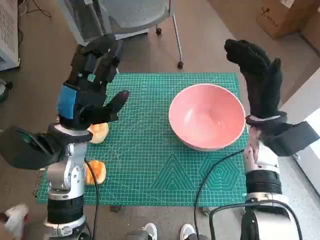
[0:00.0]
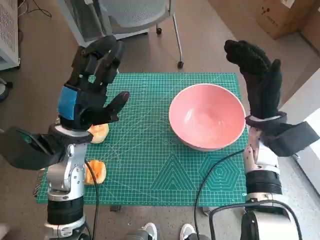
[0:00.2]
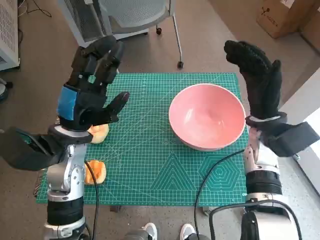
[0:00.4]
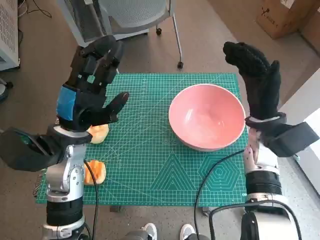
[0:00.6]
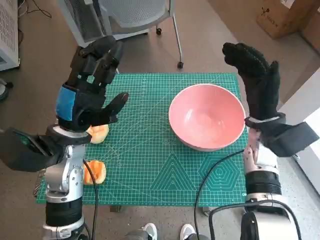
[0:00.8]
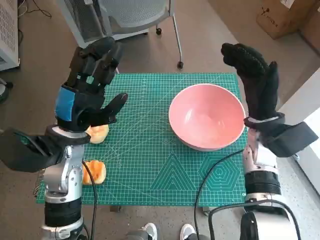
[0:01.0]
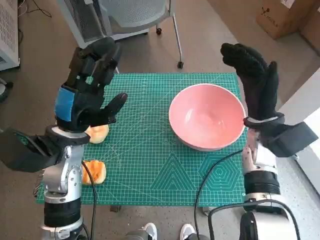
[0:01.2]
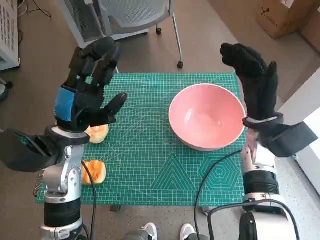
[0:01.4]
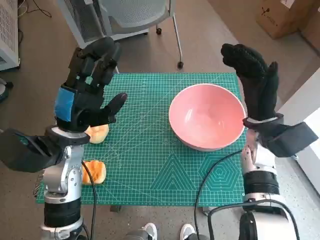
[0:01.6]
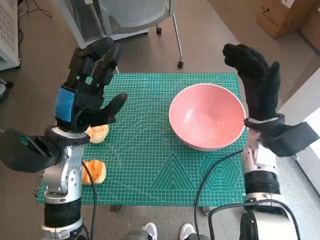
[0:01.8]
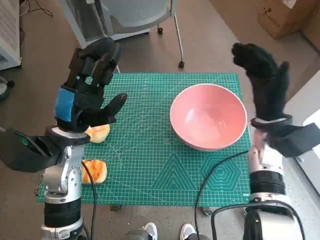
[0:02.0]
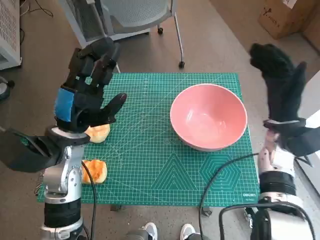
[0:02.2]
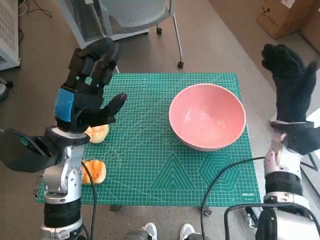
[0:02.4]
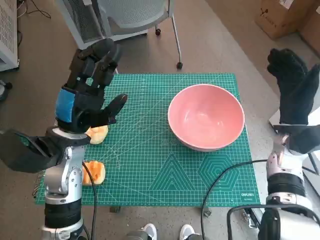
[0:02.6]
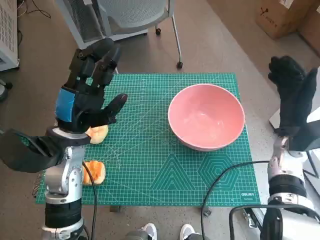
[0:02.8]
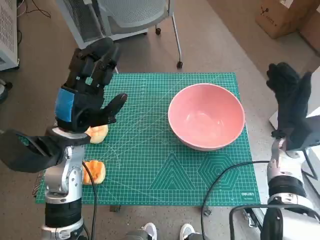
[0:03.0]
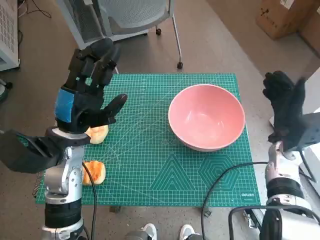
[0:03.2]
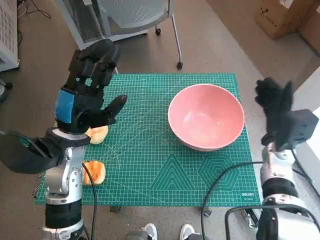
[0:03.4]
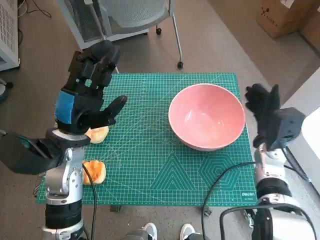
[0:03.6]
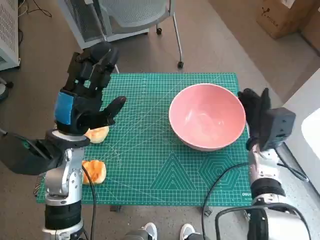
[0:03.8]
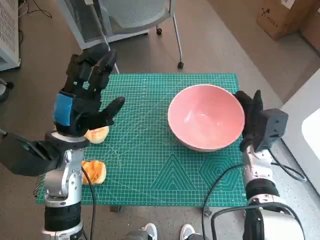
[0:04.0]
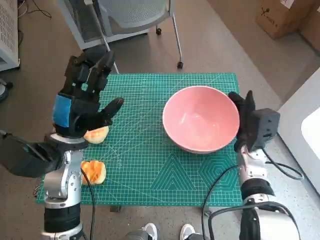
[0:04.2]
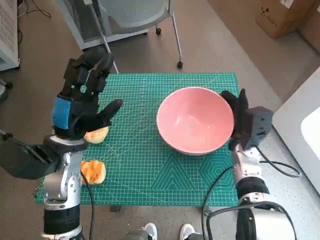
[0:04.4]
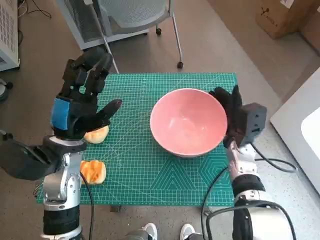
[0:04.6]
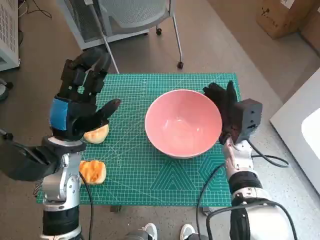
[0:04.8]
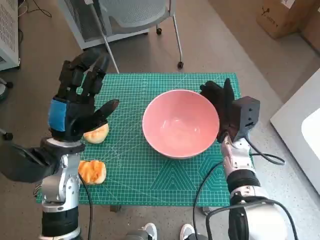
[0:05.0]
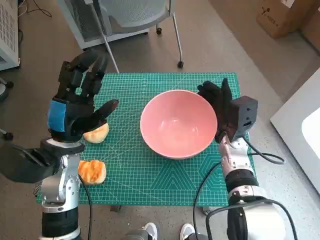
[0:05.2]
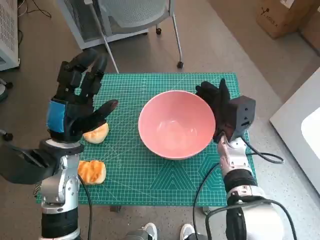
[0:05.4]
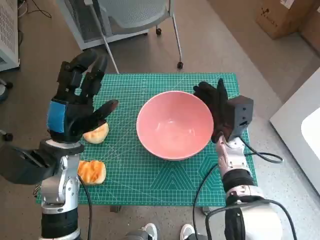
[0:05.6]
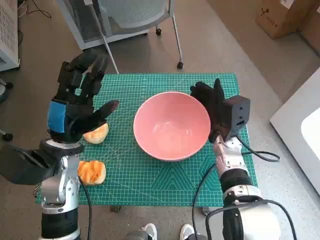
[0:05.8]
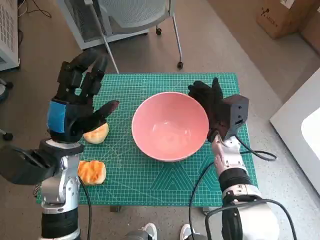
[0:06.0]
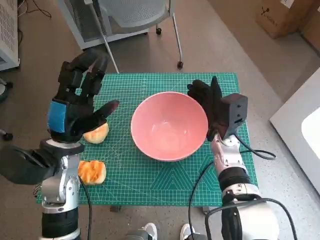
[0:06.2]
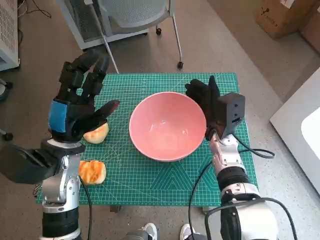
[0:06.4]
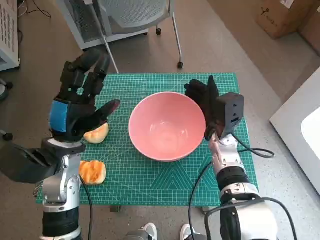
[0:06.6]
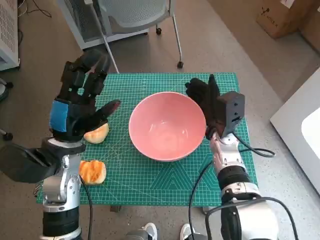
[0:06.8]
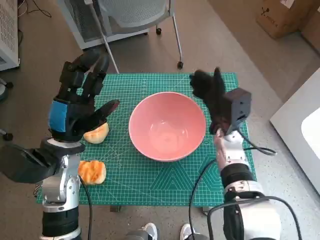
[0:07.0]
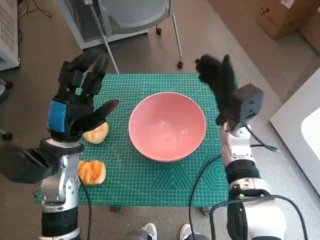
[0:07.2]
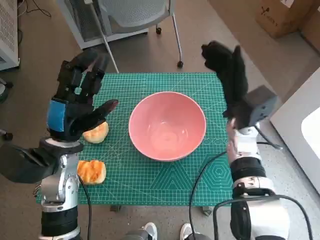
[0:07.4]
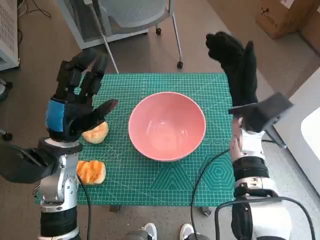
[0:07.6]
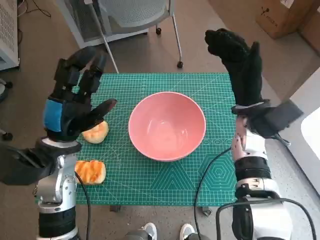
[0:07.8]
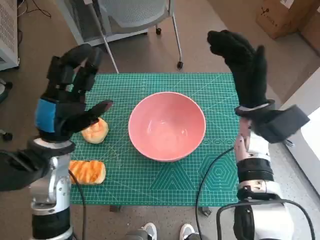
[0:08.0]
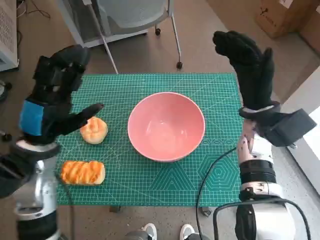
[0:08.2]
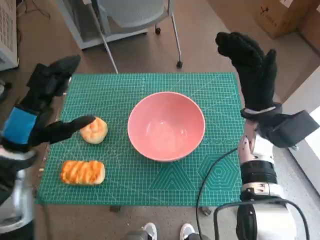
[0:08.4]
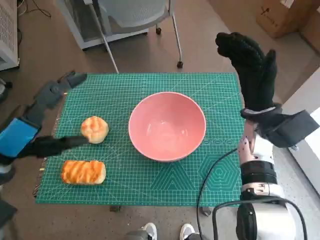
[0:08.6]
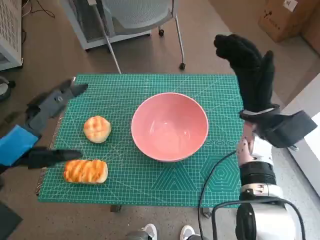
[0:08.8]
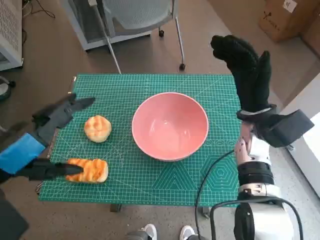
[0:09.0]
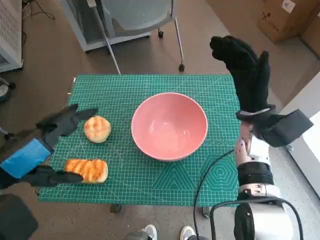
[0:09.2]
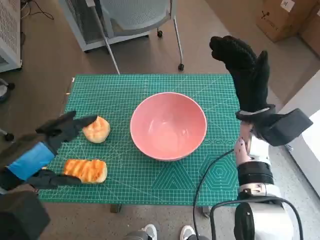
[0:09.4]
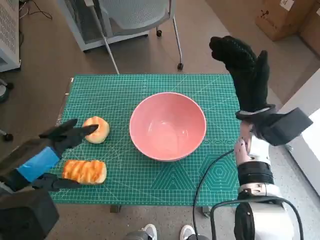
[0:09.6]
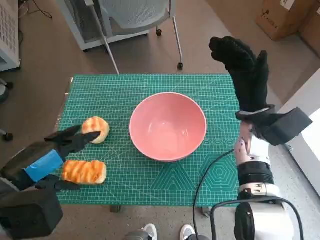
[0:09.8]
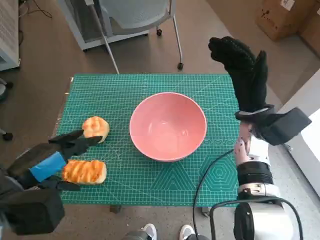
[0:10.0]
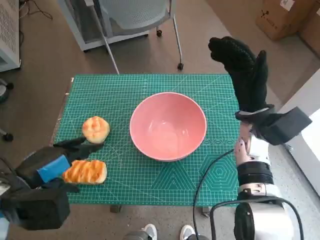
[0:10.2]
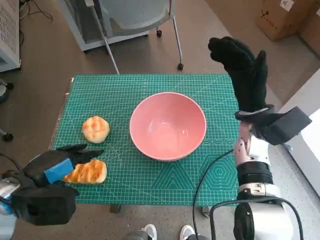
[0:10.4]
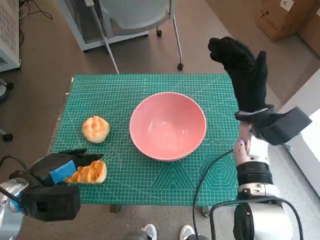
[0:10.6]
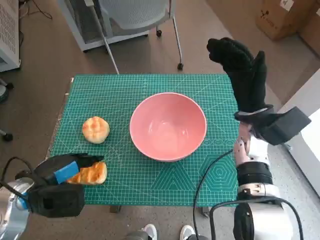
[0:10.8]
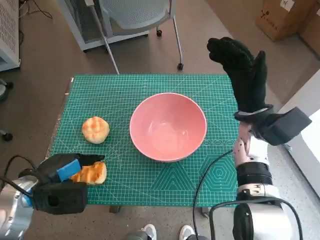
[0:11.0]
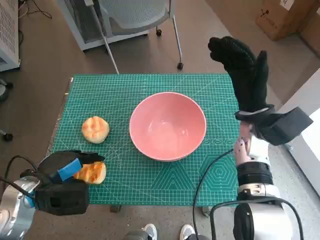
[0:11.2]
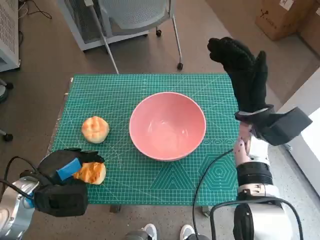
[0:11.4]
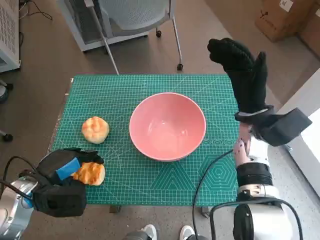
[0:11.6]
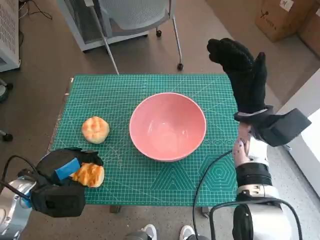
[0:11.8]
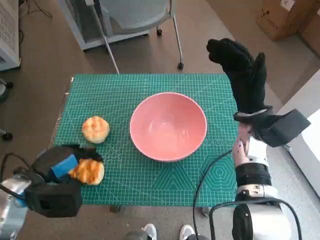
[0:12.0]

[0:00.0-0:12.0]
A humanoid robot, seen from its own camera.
Step, 0:00.0 to 0:07.0: Move the pink bowl to the center of table with right hand.
Step, 0:07.2 to 0:11.4: Grasp the long bread with left hand.
0:01.6 to 0:03.0: The right hand moves to the right, approximately 5 cm.
0:03.0 to 0:04.4: The right hand is displaced to the left and downward by about 10 cm.
0:04.4 to 0:06.0: The right hand goes approximately 5 cm to the left.
0:06.0 to 0:07.6: The right hand moves upward, approximately 5 cm.
0:07.6 to 0:09.0: The left hand is displaced backward and upward by about 15 cm.
0:09.0 to 0:10.4: The left hand shifts some 10 cm downward.
0:10.4 to 0:12.0: The left hand ends up roughly 5 cm from where it was.

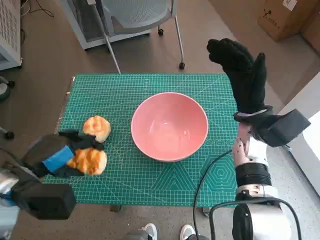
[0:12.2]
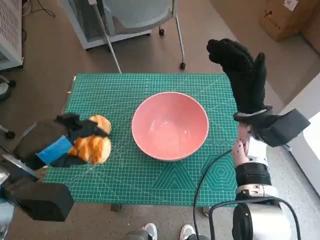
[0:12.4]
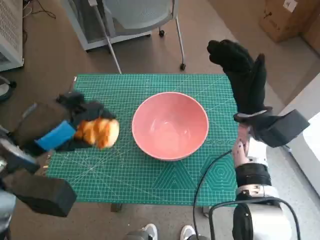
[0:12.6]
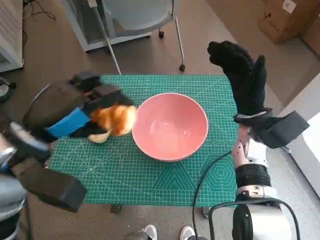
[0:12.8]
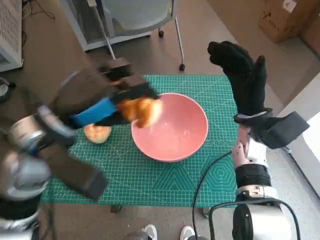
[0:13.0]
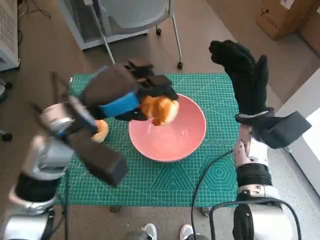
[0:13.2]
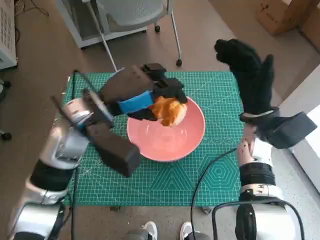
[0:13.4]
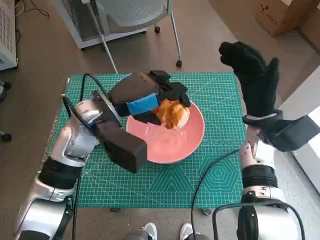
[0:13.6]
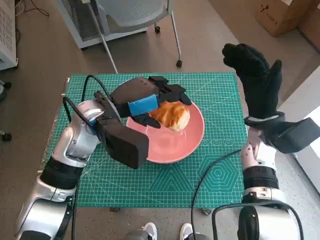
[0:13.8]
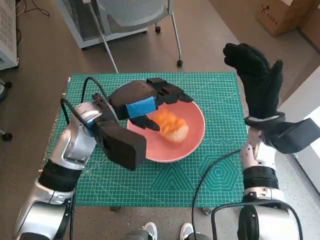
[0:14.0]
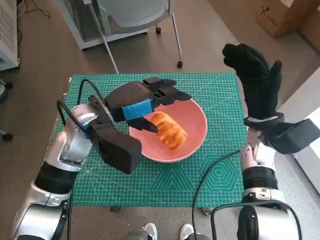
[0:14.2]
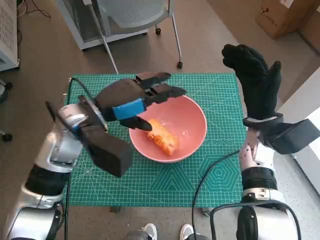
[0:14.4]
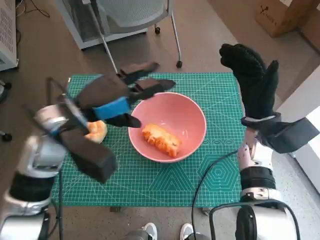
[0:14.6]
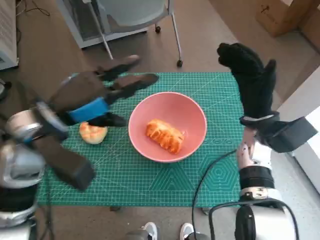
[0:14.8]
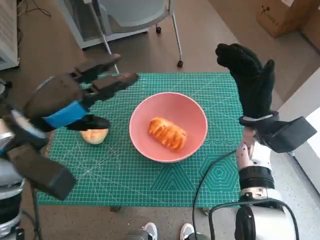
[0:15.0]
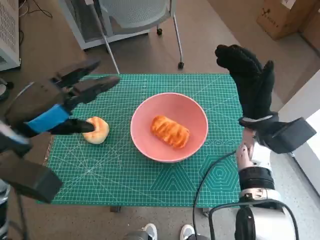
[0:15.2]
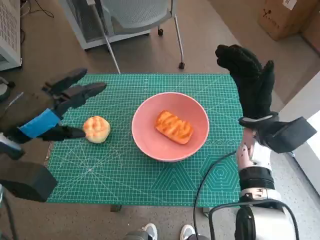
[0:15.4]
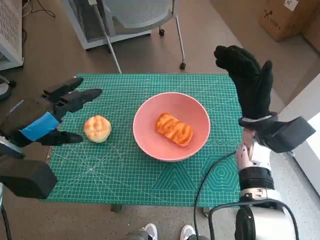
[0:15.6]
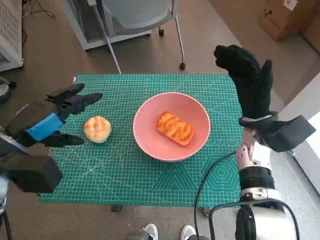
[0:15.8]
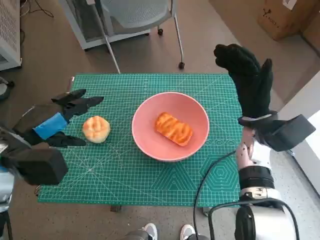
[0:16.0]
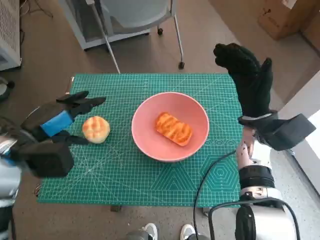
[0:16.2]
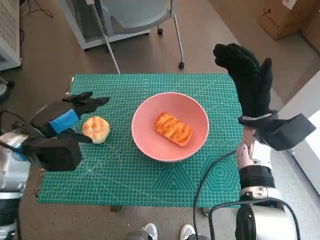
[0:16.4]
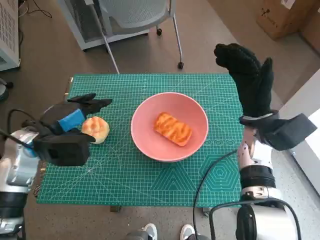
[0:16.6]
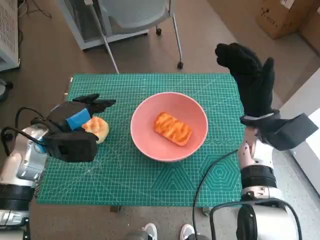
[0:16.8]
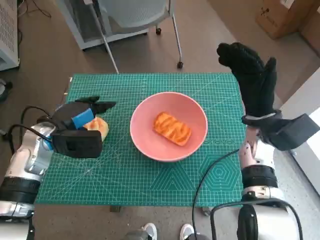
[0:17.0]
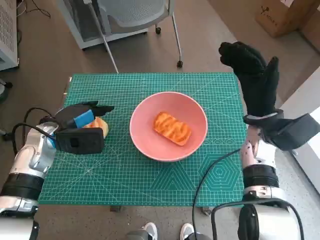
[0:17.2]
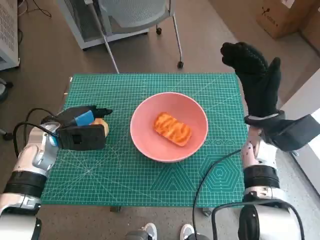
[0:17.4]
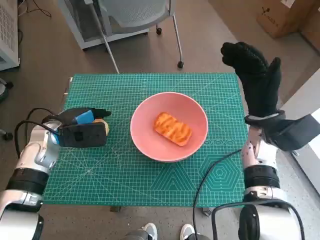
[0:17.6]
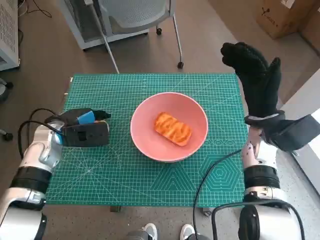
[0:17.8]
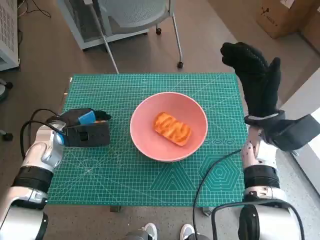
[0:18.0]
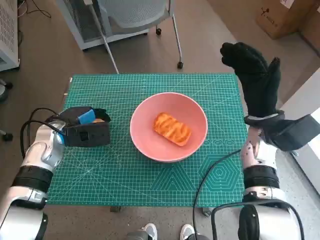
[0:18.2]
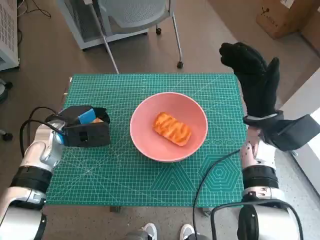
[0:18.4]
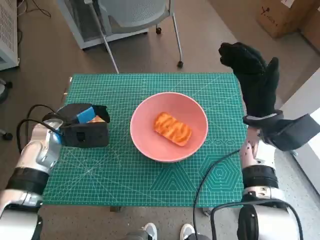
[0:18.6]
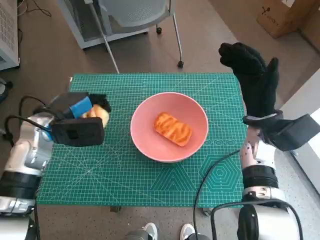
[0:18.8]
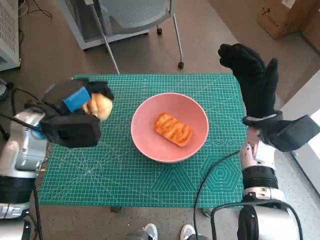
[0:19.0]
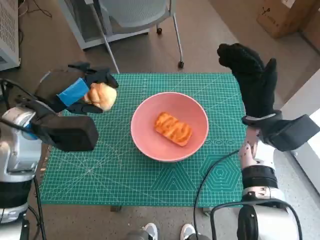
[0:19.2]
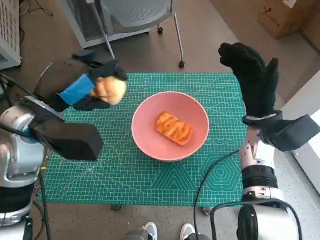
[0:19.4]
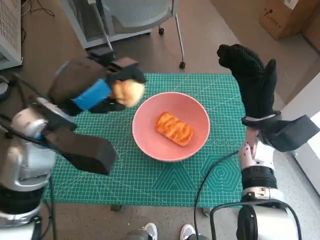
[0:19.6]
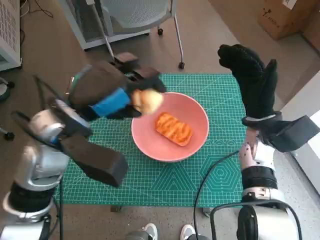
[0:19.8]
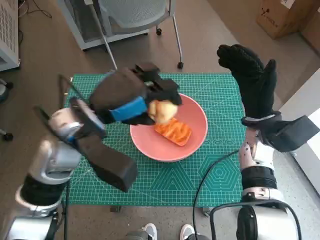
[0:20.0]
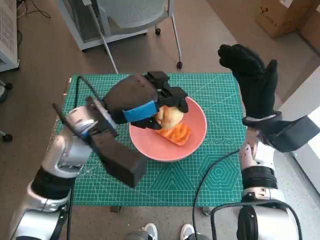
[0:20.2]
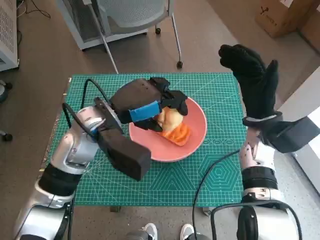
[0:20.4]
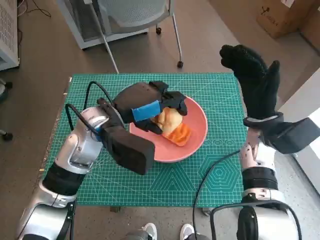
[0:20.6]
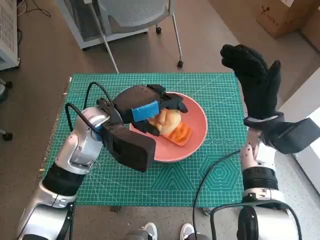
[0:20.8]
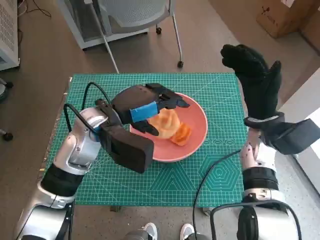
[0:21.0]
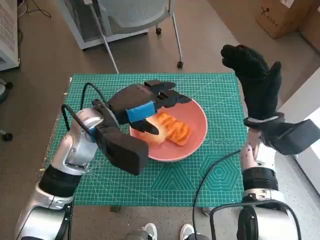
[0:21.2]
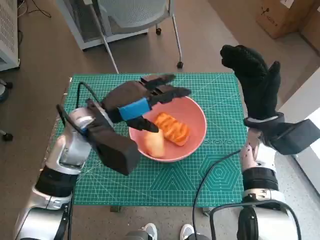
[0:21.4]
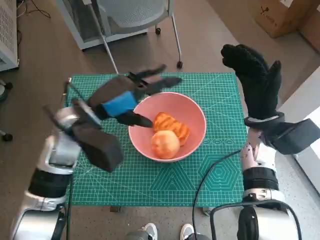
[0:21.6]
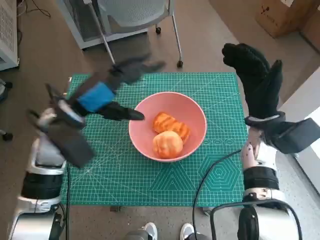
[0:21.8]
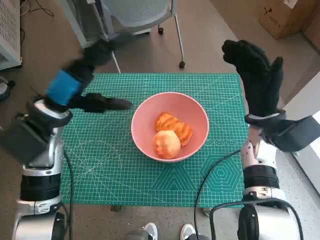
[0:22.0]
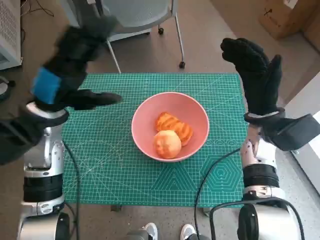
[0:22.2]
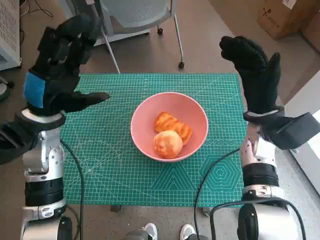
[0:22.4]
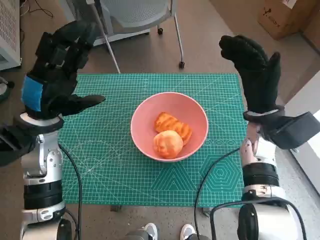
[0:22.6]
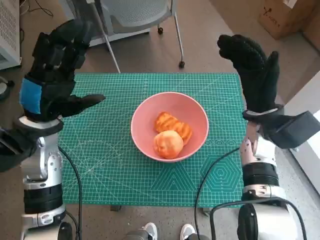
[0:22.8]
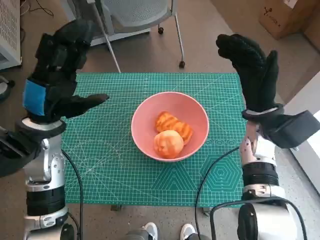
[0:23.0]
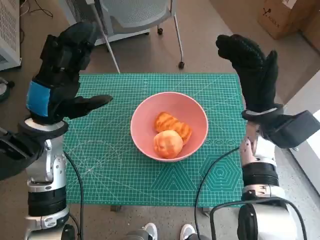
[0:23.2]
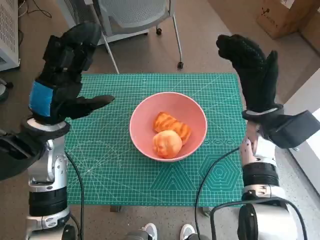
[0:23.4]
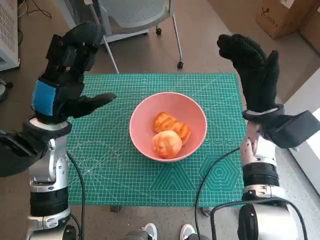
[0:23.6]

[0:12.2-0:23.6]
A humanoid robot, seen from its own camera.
Step, 0:12.2 to 0:14.2: Place the long bread in pink bowl with left hand.
Step, 0:14.4 to 0:18.2: Grasp the round bread with left hand.
Step, 0:18.4 to 0:21.2: Place the round bread in pink bowl with left hand.
0:12.2 to 0:13.6: The left hand shifts about 20 cm to the right, forward and upward.
0:13.6 to 0:15.0: The left hand goes roughly 10 cm to the left and backward.
0:15.0 to 0:16.4: The left hand travels downward and to the left by some 10 cm.
0:16.4 to 0:17.8: The left hand is displaced downward and forward by some 10 cm.
0:17.8 to 0:19.4: The left hand is displaced upward by some 10 cm.
0:19.4 to 0:20.8: The left hand shifts roughly 10 cm to the right.
0:20.8 to 0:22.2: The left hand heads to the left, covering roughly 10 cm.
0:22.2 to 0:23.6: The hands stay close to where they were, moving slightly.
